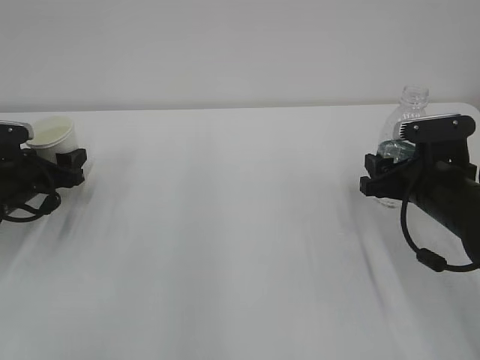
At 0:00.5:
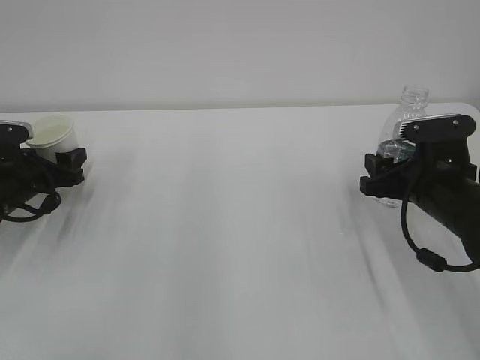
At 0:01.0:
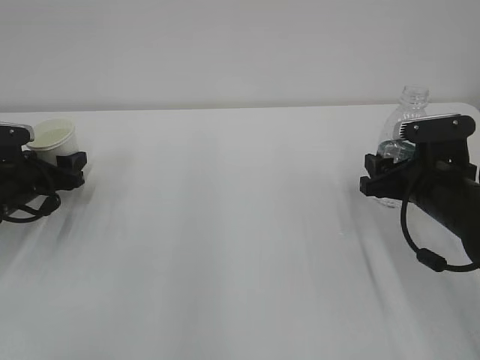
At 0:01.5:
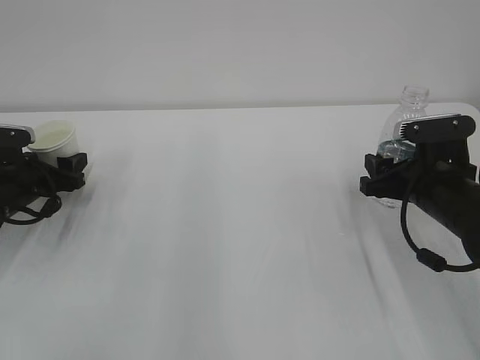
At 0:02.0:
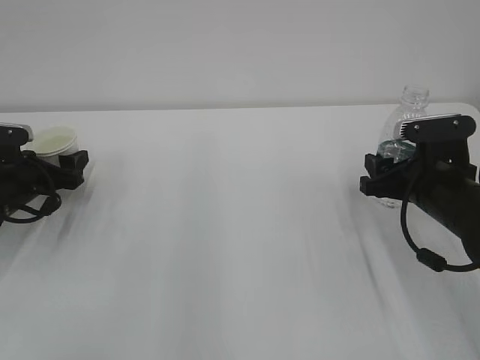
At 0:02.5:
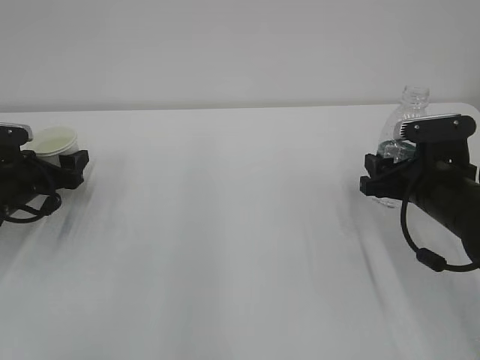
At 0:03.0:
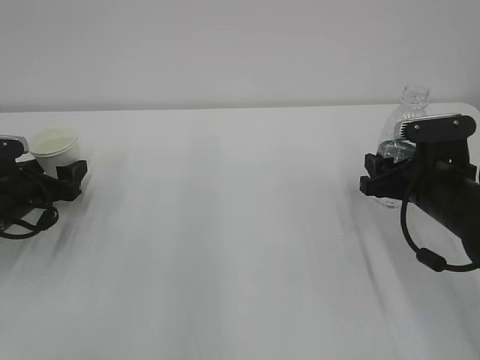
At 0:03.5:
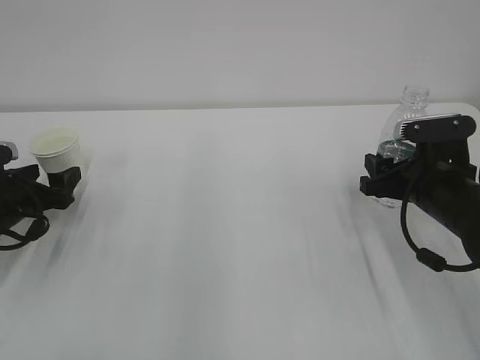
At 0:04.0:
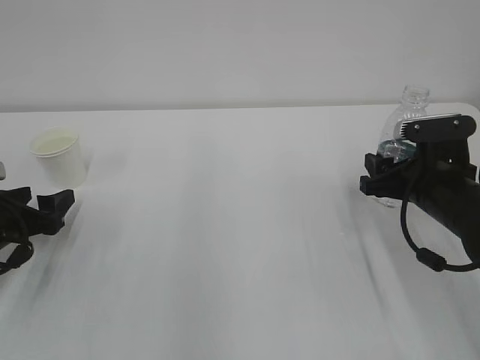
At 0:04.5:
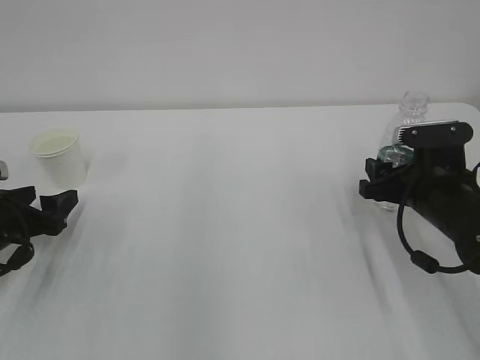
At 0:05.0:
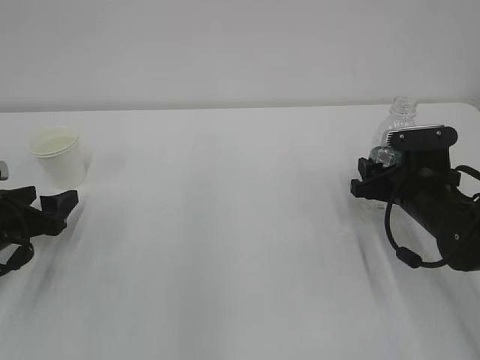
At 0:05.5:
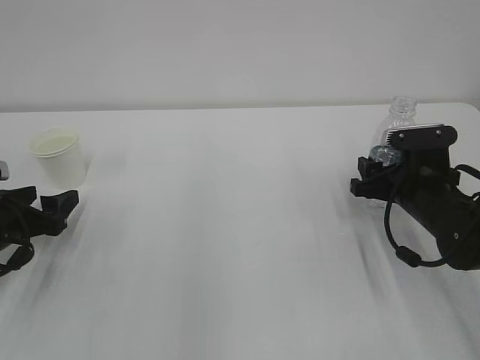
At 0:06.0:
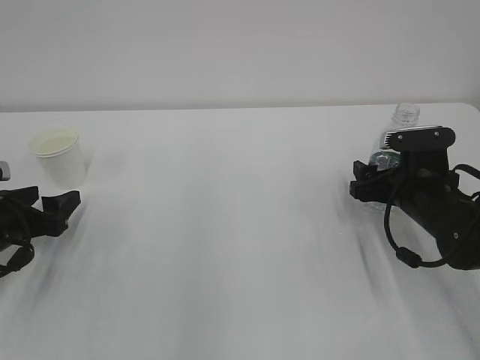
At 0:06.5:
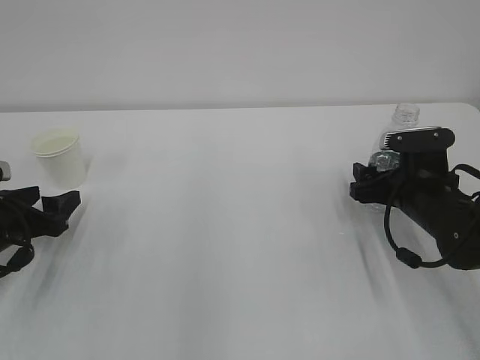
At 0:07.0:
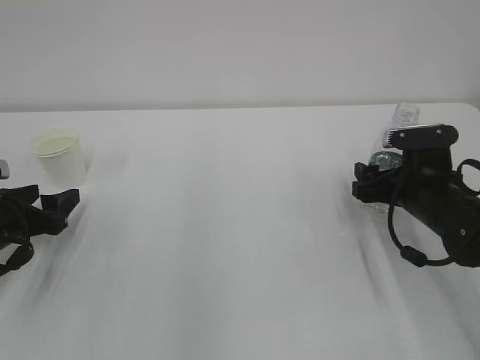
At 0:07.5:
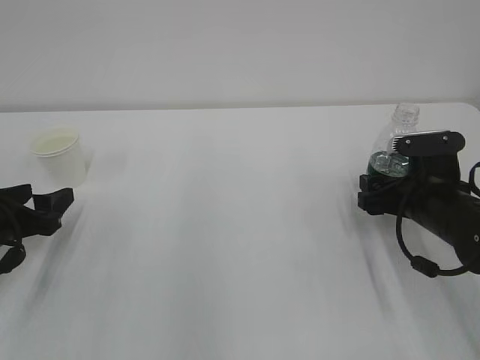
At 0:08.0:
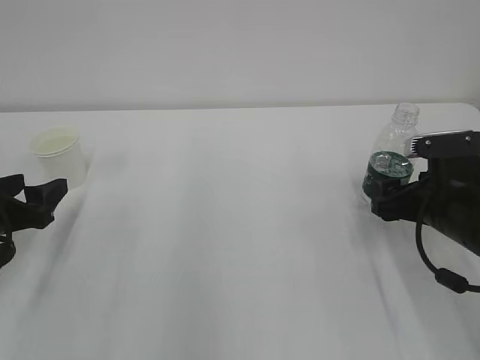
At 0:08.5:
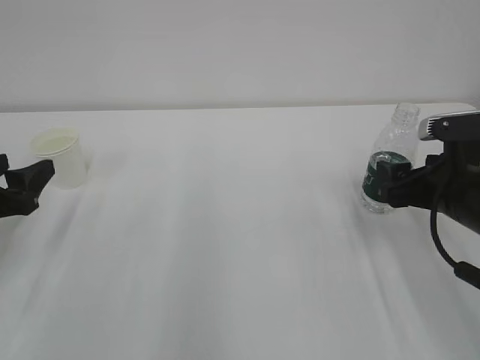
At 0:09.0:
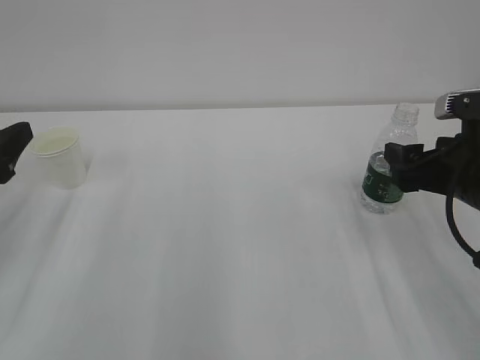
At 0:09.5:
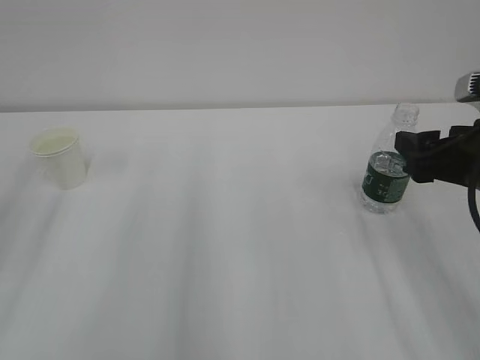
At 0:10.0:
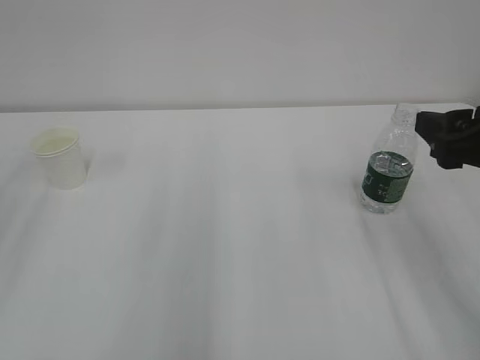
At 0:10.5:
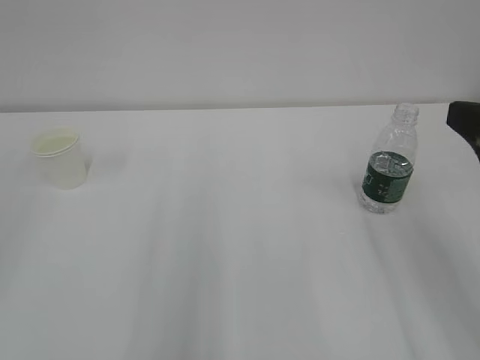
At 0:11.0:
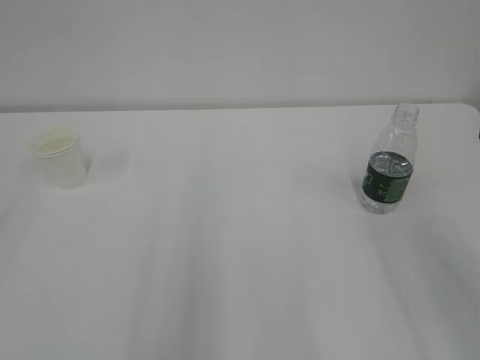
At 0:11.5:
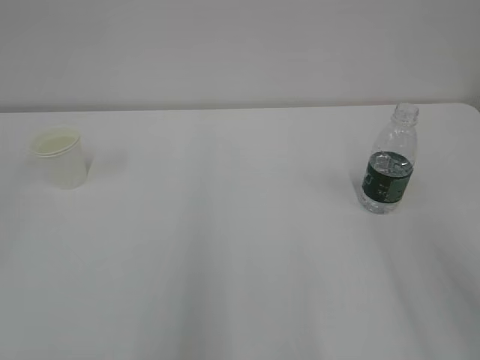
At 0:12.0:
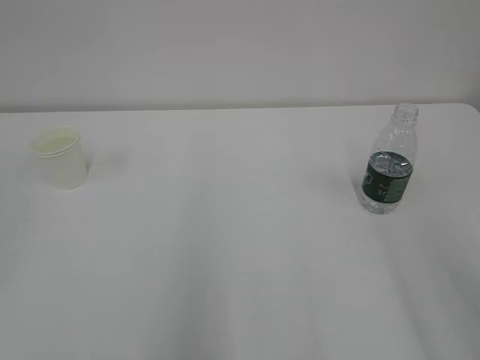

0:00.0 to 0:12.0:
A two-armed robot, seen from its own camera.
0:00.0 to 0:02.0: The left gripper opens its fingers.
0:02.0 to 0:04.0: The left gripper travels backward by about 10 cm.
0:04.0 to 0:06.0: The right gripper opens up.
0:06.0 to 0:08.0: The right gripper shifts by some 5 cm.
0:08.0 to 0:10.0: Both grippers travel together upward and backward, about 20 cm.
0:10.0 to 0:12.0: The right gripper is displaced backward and upward by roughly 15 cm.

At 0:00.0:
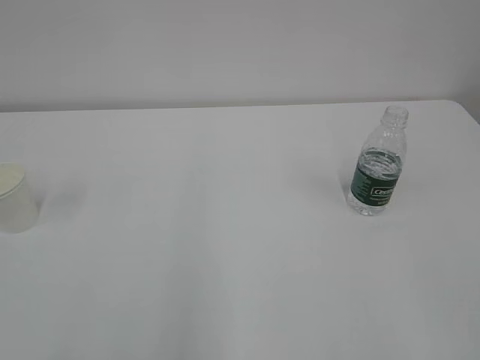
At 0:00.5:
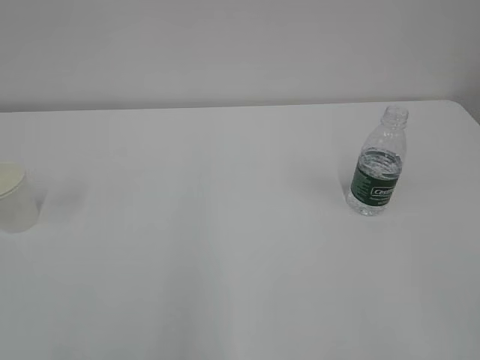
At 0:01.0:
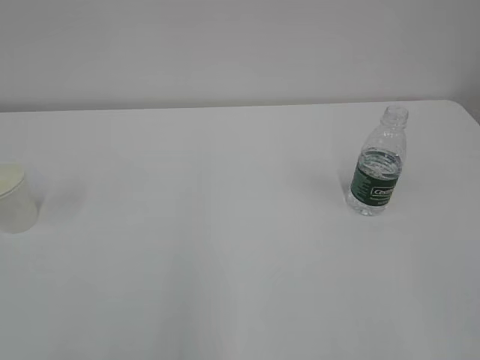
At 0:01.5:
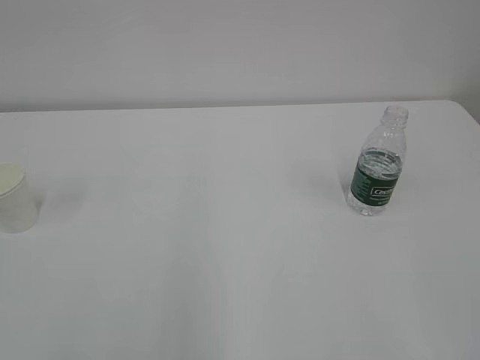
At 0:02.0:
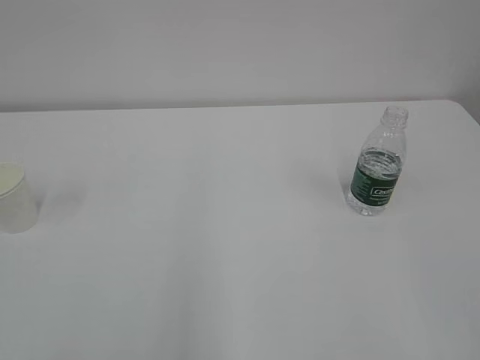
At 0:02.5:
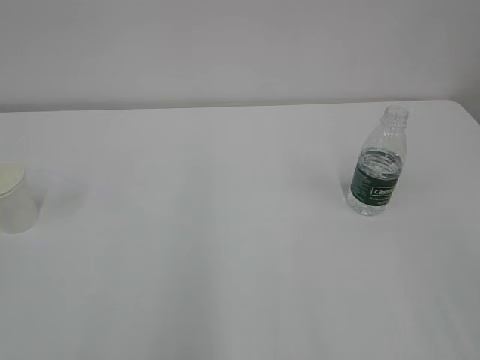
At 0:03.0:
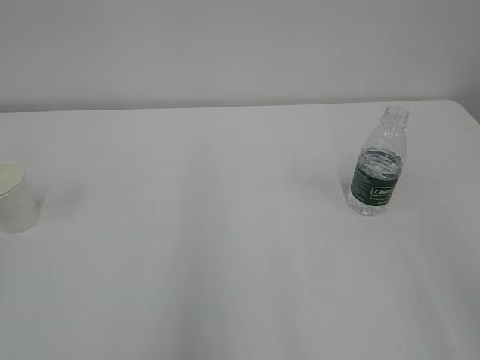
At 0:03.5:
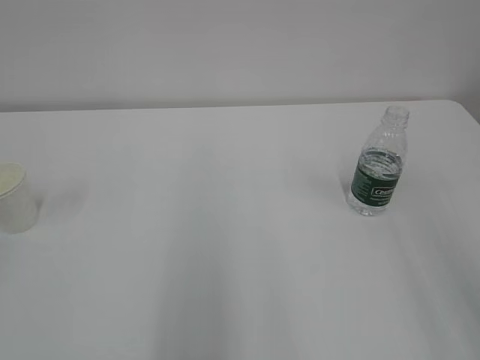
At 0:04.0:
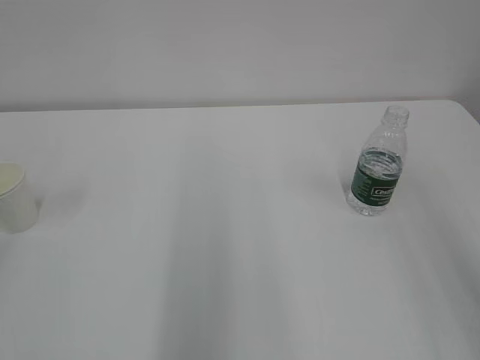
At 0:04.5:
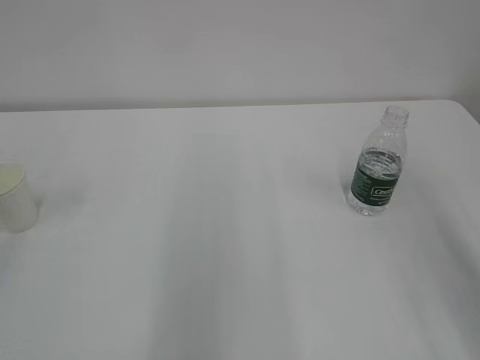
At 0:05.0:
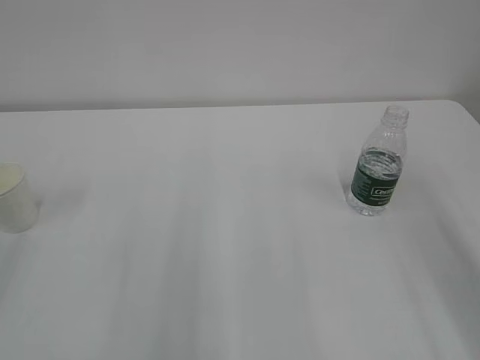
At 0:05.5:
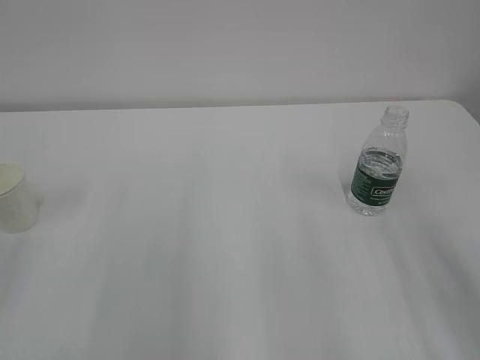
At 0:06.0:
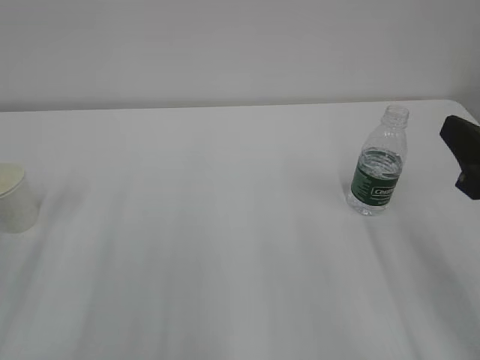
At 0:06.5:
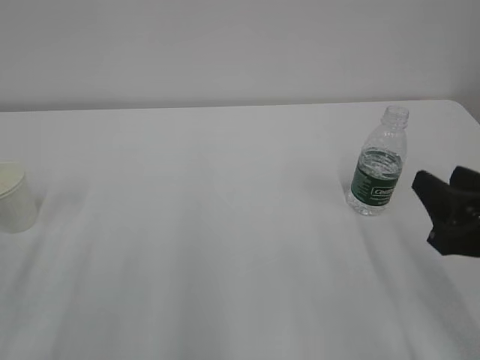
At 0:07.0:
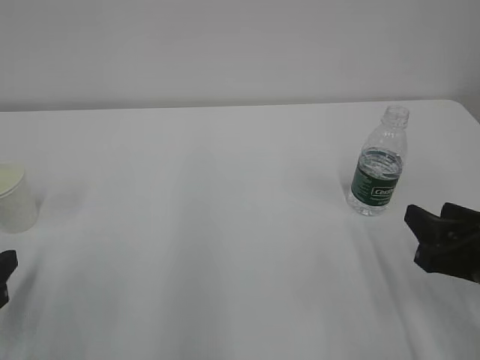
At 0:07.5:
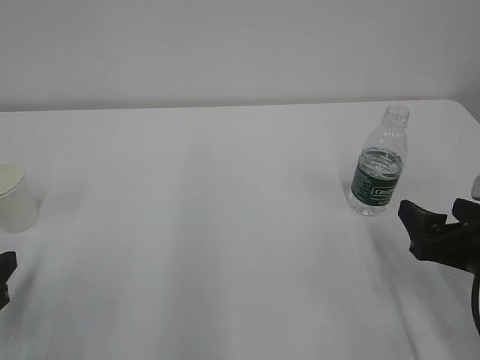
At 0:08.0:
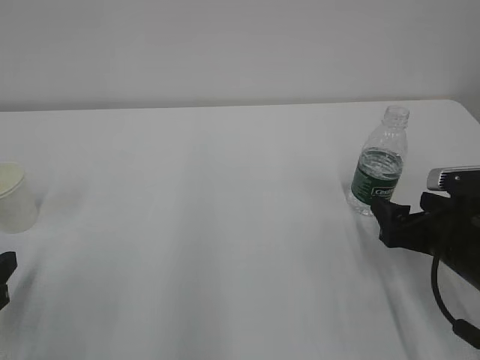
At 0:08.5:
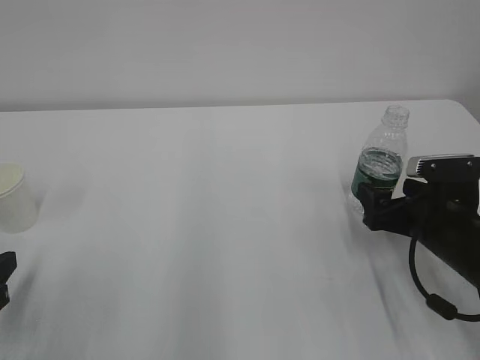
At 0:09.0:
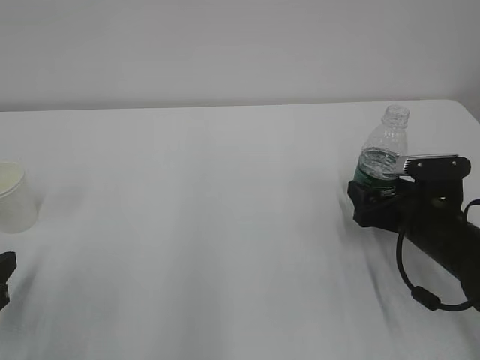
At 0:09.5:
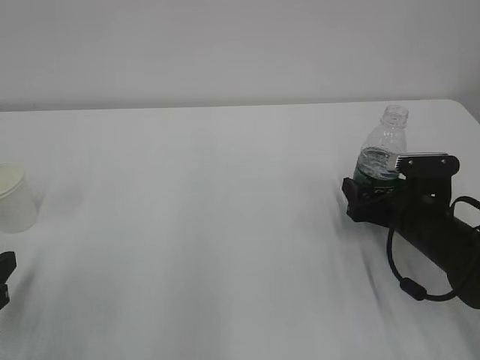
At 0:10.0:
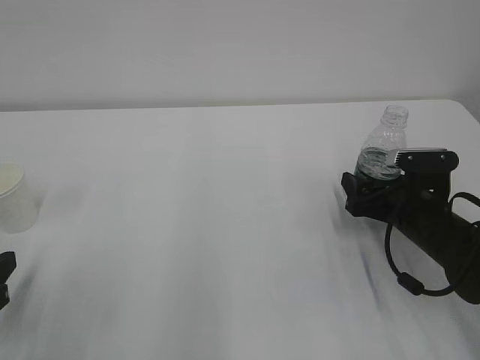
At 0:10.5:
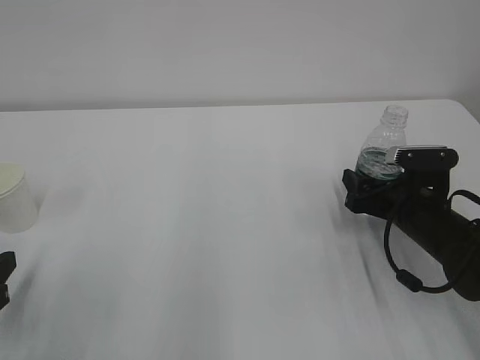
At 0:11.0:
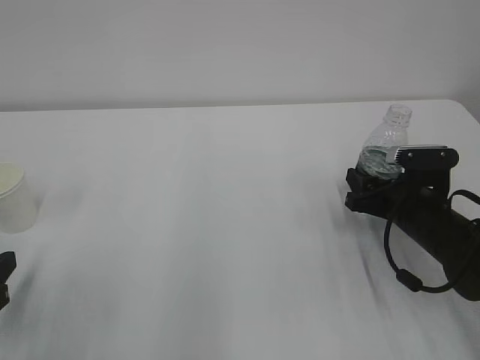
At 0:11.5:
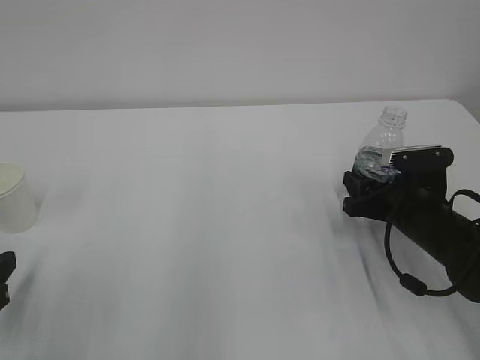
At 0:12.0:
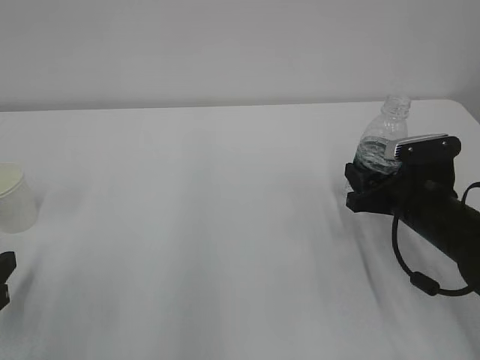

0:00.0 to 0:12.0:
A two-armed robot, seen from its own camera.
0:04.0 to 0:06.0: The right gripper travels downward and forward by approximately 15 cm.
0:06.0 to 0:08.0: The left gripper moves downward, some 10 cm, while the right gripper shifts some 15 cm downward and forward, and opens its fingers.
0:08.0 to 0:10.0: The right gripper is displaced forward by roughly 5 cm.
0:10.0 to 0:12.0: The right gripper closes.

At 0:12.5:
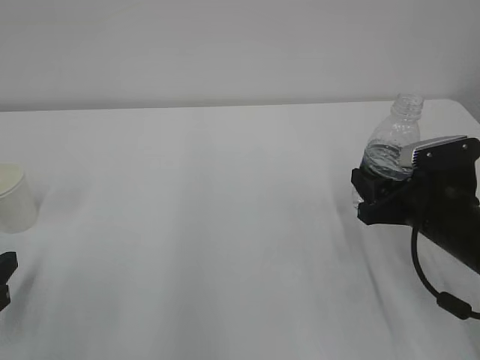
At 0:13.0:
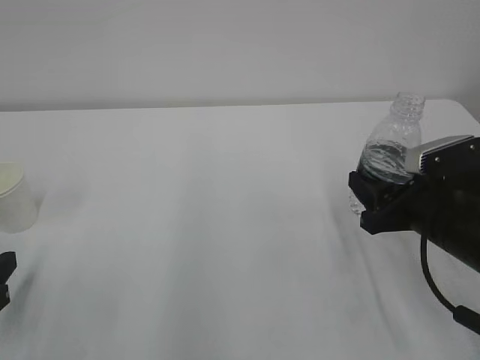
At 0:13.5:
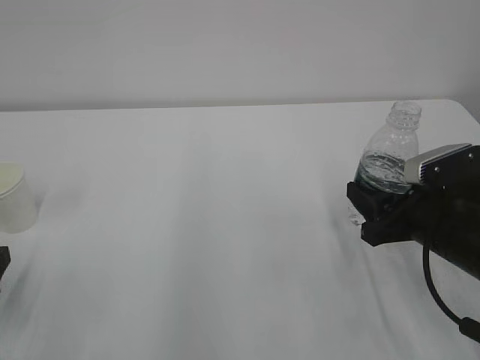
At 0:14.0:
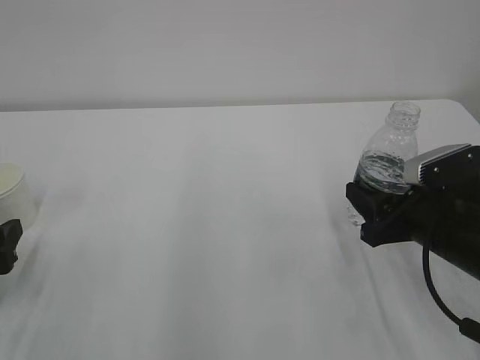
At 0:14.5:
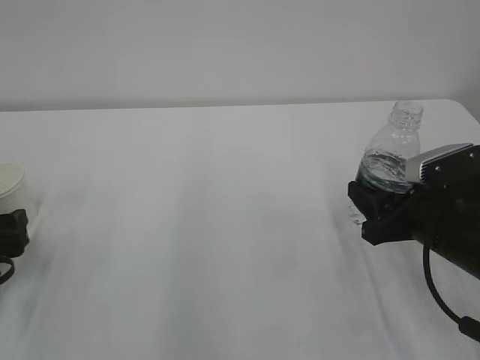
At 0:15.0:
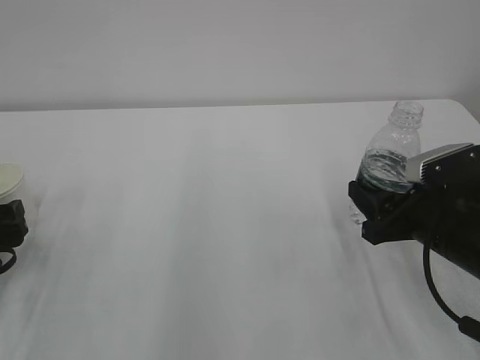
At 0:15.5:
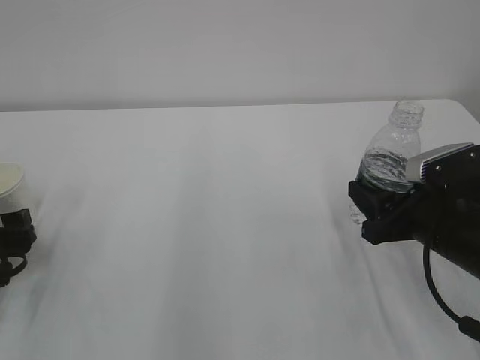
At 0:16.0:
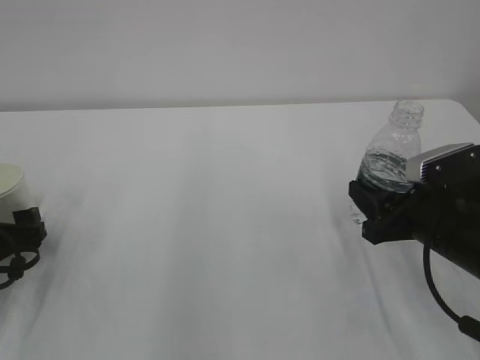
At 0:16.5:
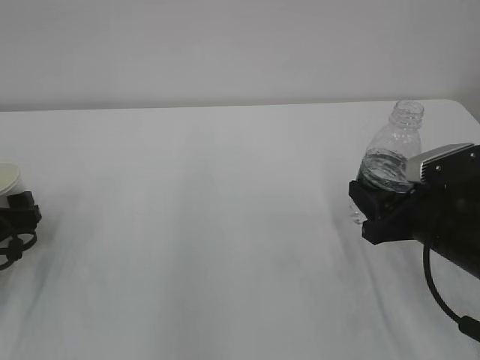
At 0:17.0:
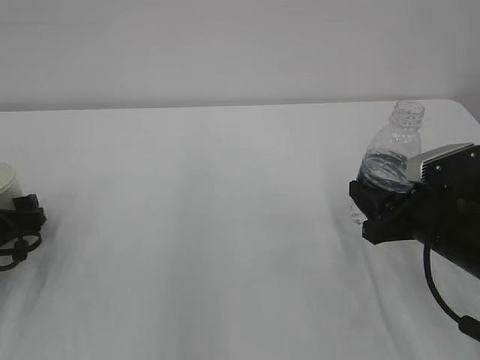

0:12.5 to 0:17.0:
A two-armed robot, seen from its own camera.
0:12.5 to 0:14.5: The left gripper travels forward by about 5 cm, and opens.
0:14.5 to 0:17.0: The left gripper is displaced forward by approximately 5 cm.
